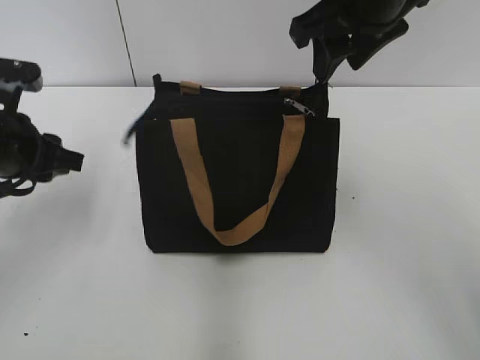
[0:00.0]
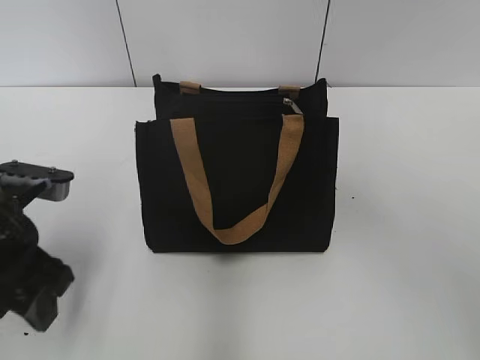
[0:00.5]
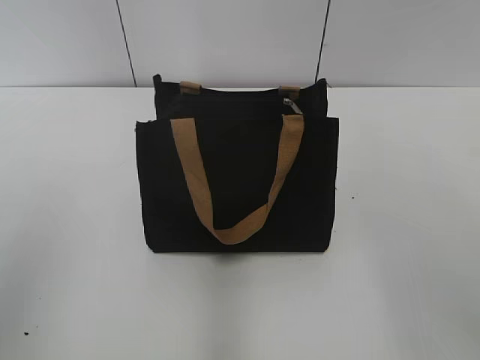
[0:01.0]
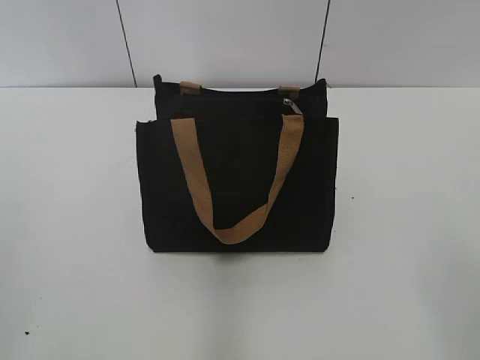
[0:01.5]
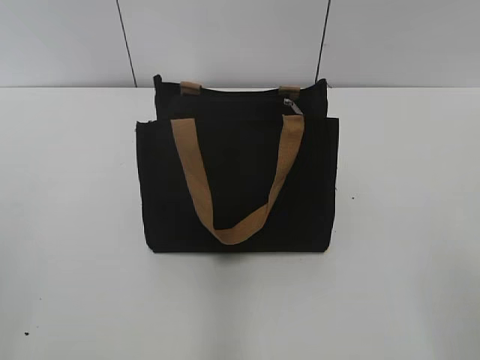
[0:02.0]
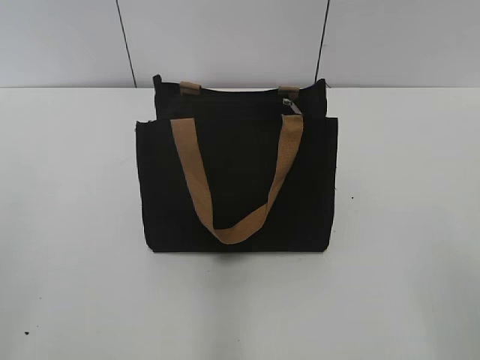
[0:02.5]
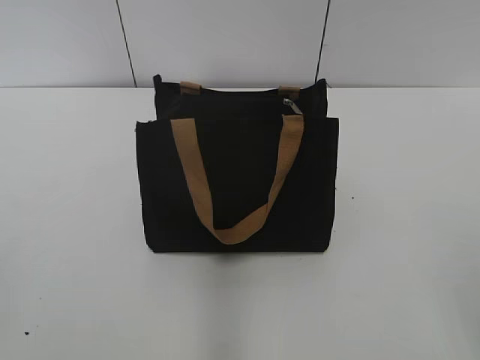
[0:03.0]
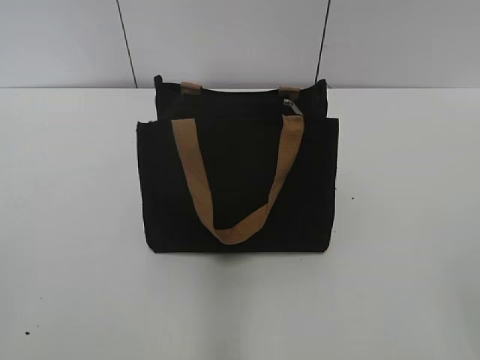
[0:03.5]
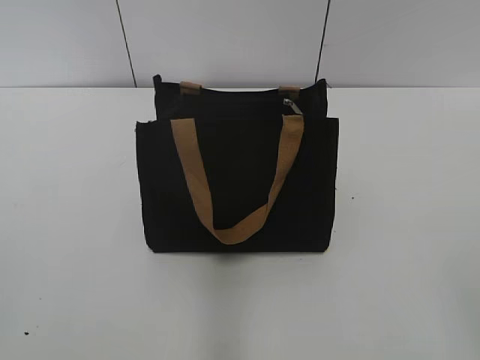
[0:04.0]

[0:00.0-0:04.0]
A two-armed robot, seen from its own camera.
0:00.0 to 0:02.0: The right gripper goes about 35 cm backward and to the right, and opens up; the left gripper travels backward by some 25 cm, and opens.

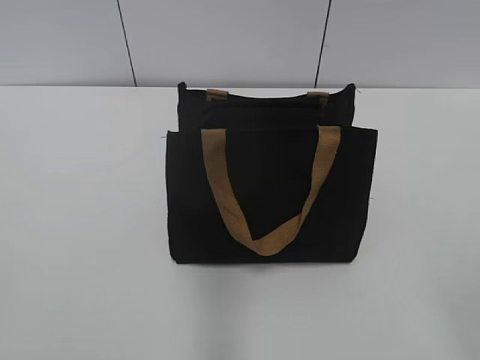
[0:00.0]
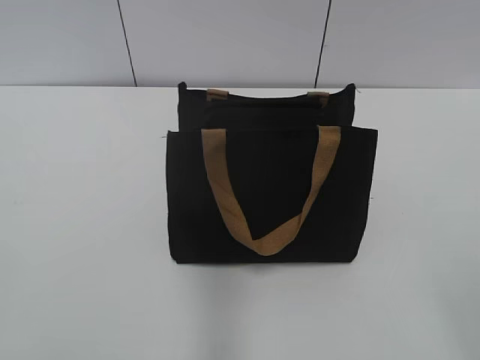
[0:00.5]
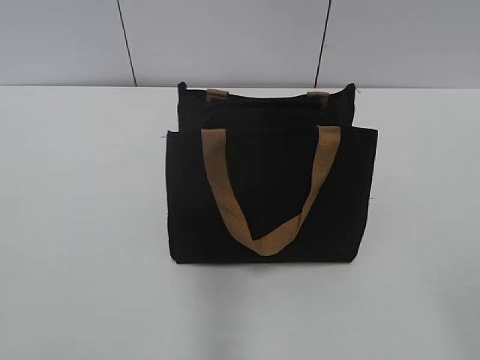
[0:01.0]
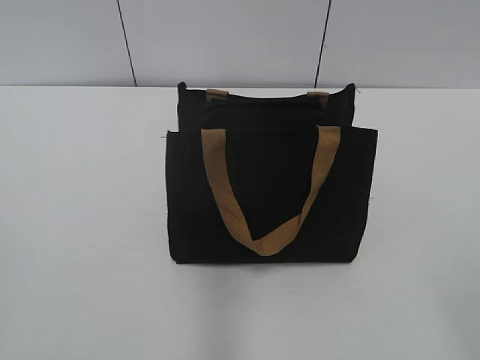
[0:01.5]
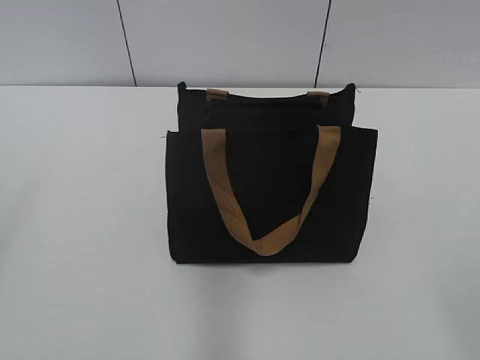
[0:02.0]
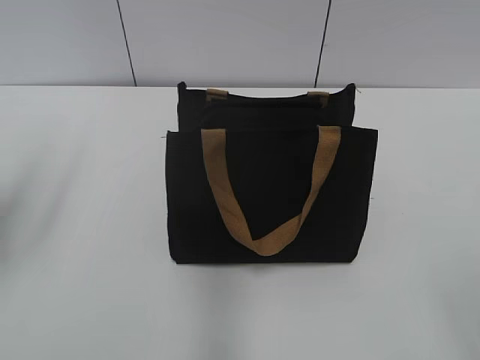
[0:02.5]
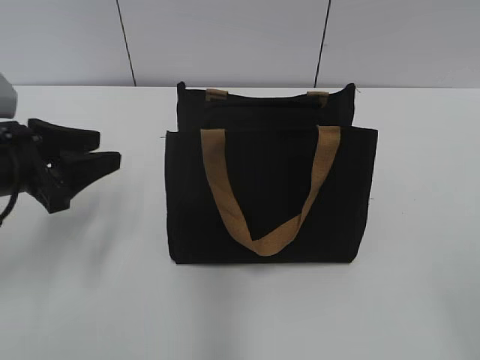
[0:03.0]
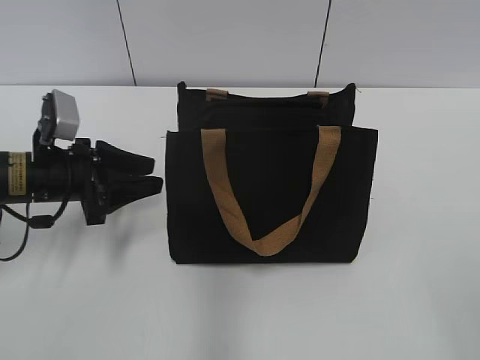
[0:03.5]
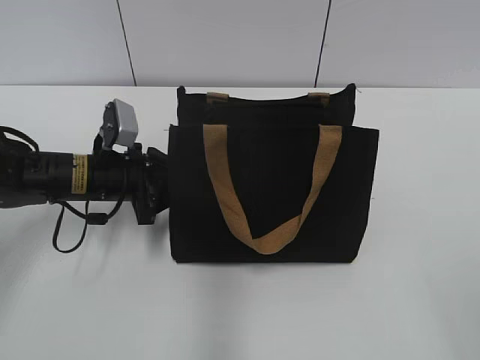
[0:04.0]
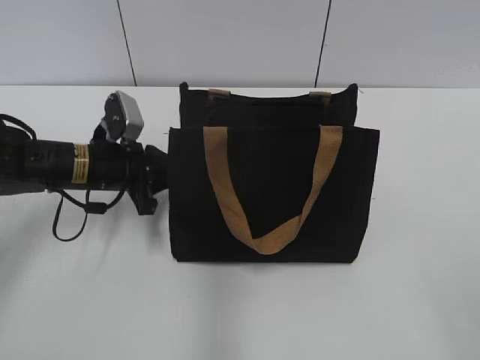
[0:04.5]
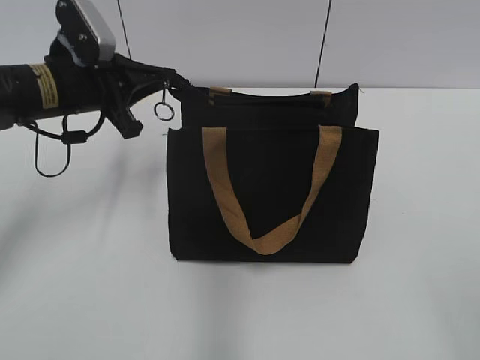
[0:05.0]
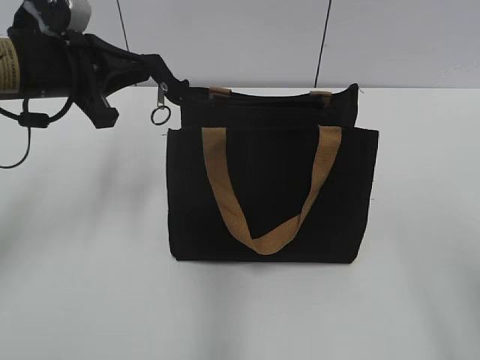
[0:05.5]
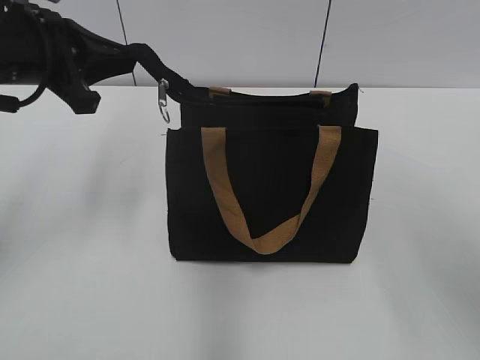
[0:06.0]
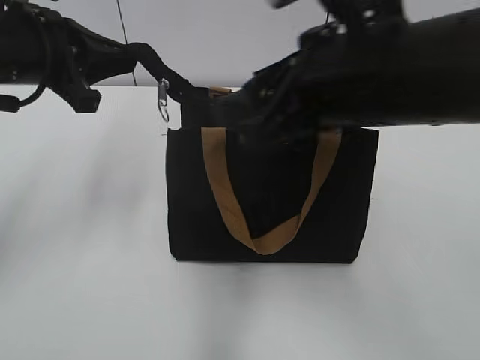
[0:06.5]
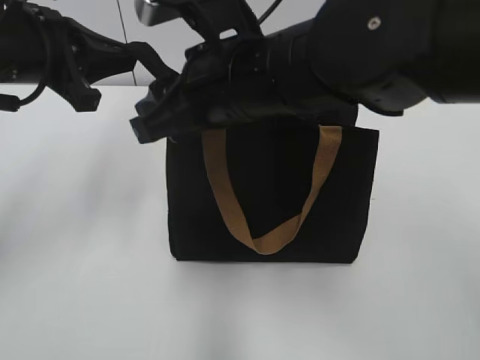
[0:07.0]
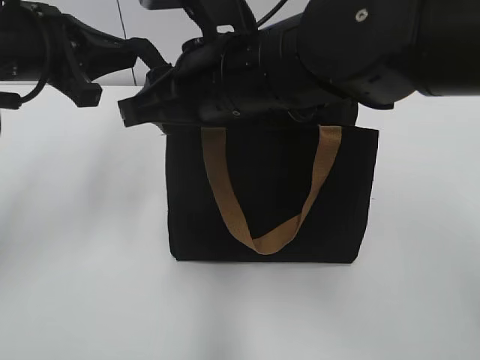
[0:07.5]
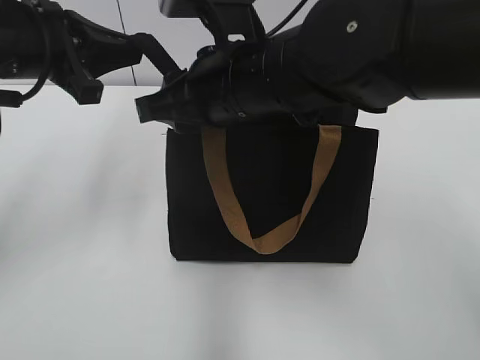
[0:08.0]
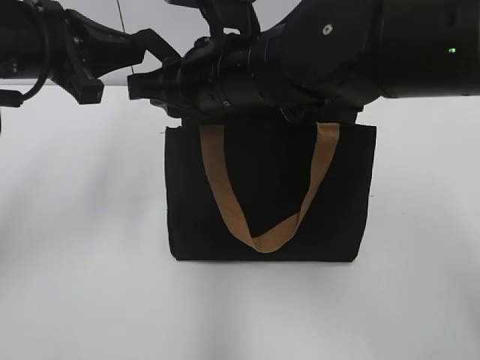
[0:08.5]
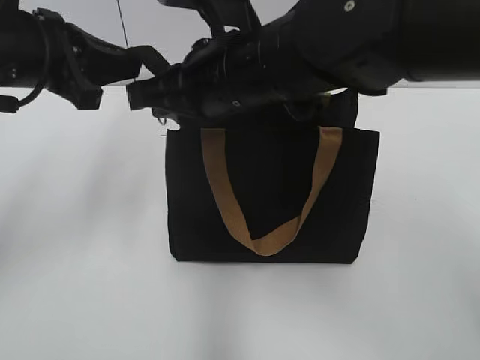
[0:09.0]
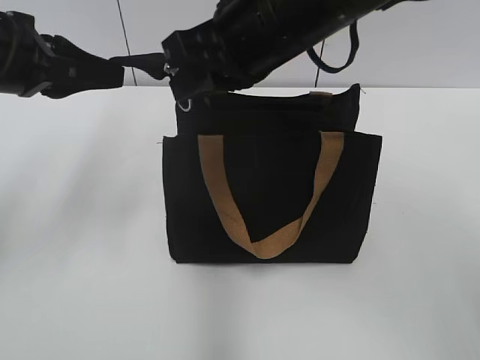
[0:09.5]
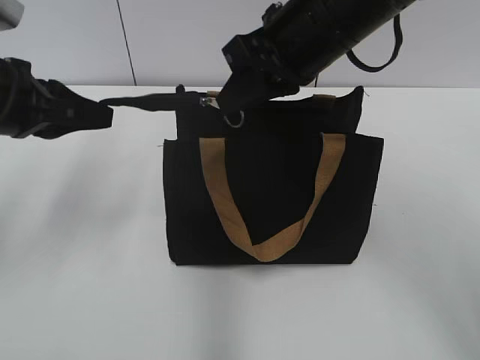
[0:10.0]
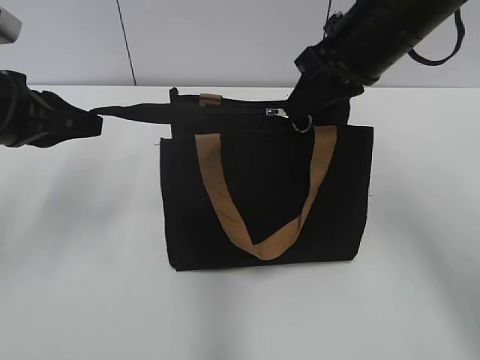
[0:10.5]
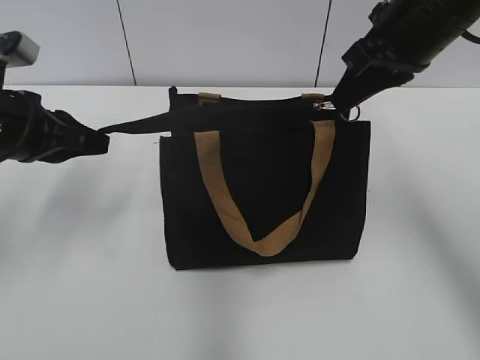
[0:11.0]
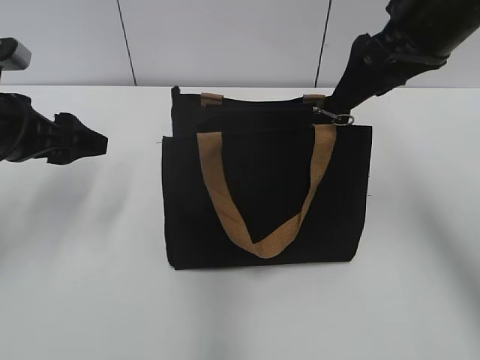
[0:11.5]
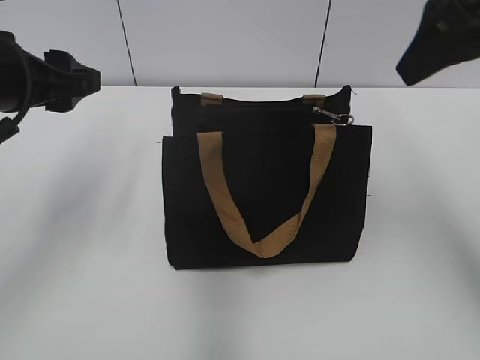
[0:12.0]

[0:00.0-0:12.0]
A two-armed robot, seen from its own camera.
Step, 0:00.0 to 0:11.0: Zip up the bag with your right hand.
0:02.0 to 0:04.0: The left gripper shifts some 40 cm forward, downward and to the right, and closes its fingers.
0:04.0 to 0:06.0: The right gripper shifts some 15 cm forward and upward. Meanwhile the left gripper moves upward, roughly 20 cm, and closes.
0:06.0 to 0:08.0: The right gripper shifts roughly 30 cm to the left and forward, and closes its fingers.
0:08.0 to 0:10.0: The right gripper moves to the right, approximately 5 cm, and closes up.
0:10.0 to 0:12.0: The left gripper opens up, while the right gripper is displaced to the right and upward by approximately 15 cm, and opens.

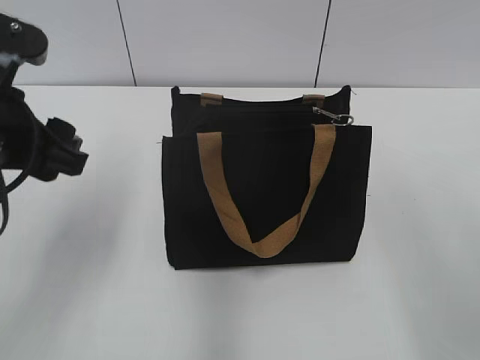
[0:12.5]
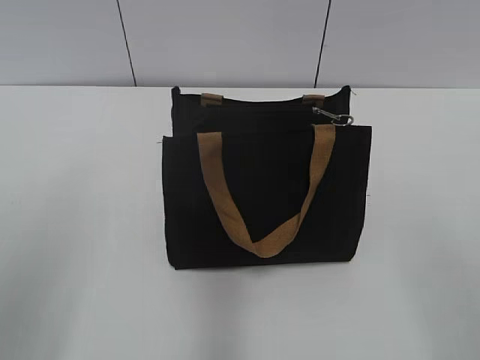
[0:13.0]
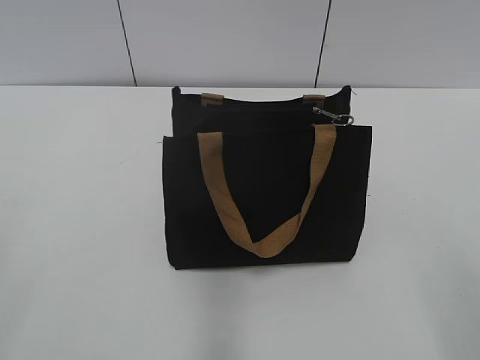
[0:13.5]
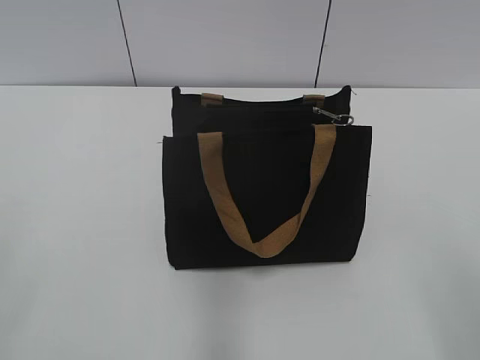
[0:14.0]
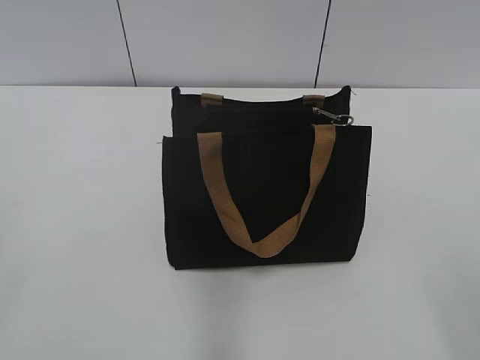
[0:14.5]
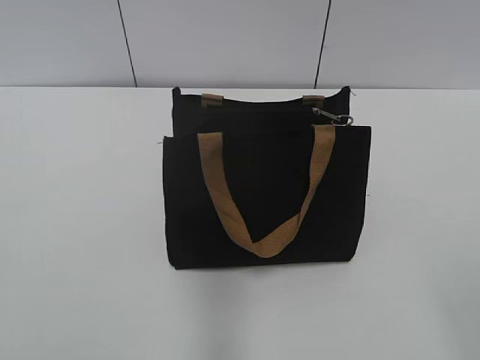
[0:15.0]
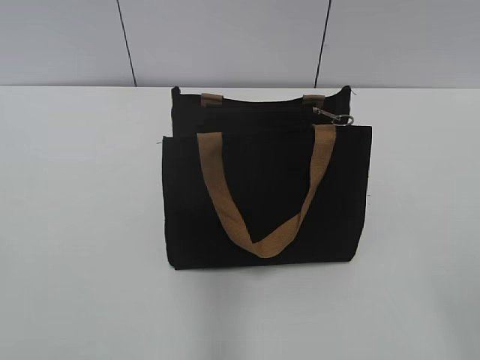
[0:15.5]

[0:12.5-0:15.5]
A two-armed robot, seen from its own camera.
0:12.5 to 0:14.0: The left gripper shifts approximately 25 cm backward and to the left.

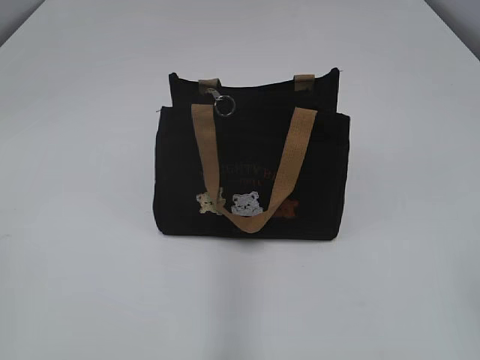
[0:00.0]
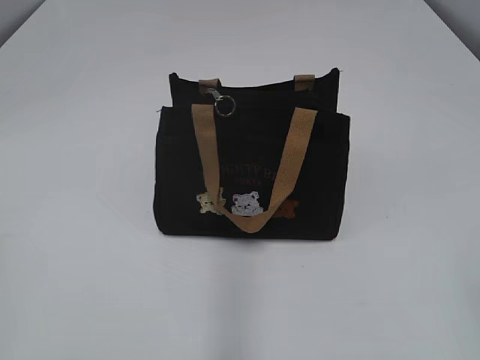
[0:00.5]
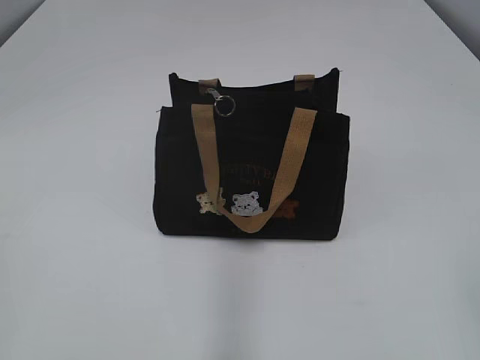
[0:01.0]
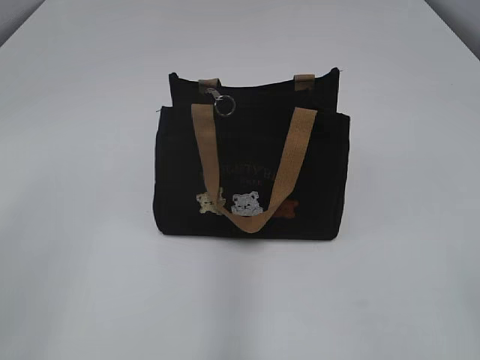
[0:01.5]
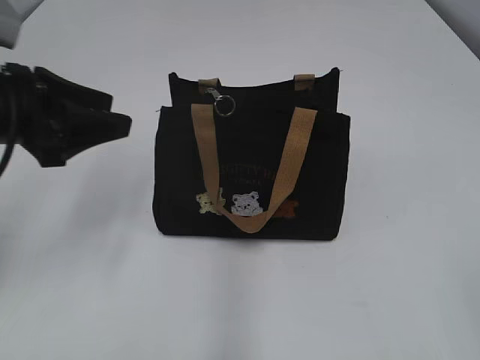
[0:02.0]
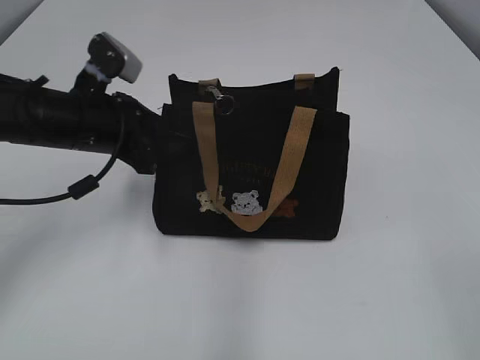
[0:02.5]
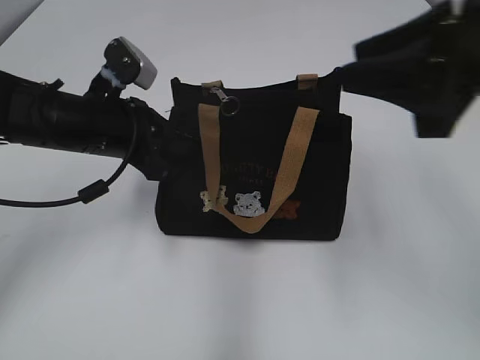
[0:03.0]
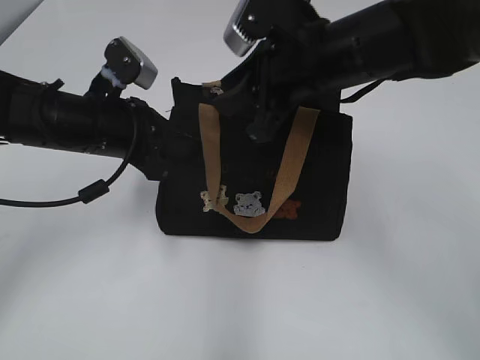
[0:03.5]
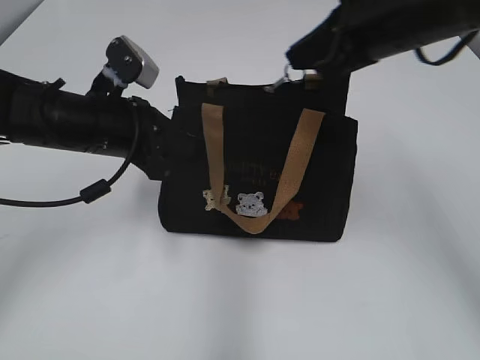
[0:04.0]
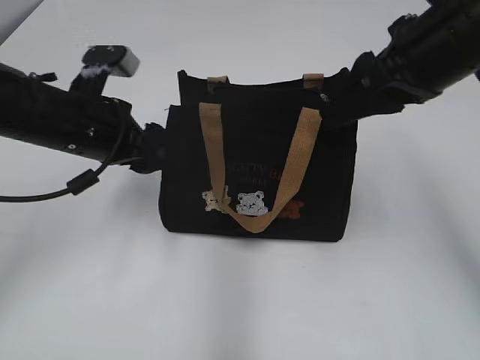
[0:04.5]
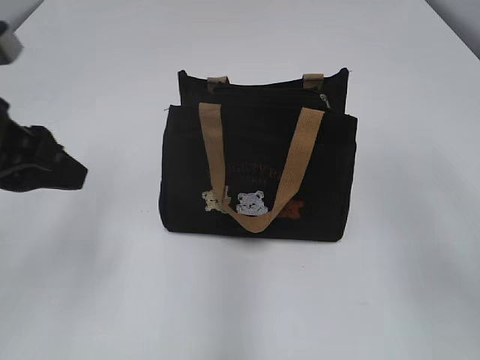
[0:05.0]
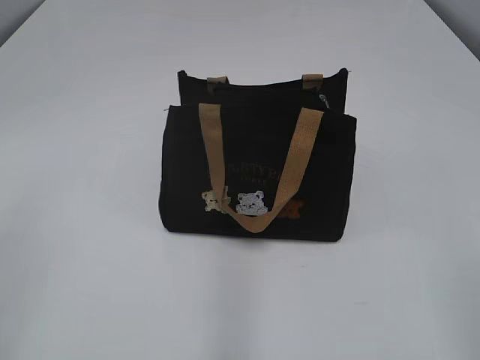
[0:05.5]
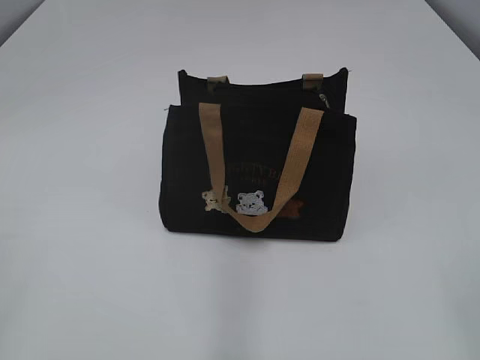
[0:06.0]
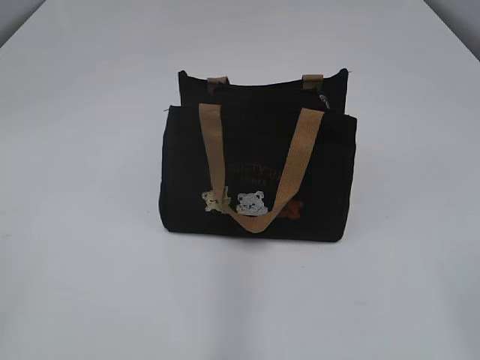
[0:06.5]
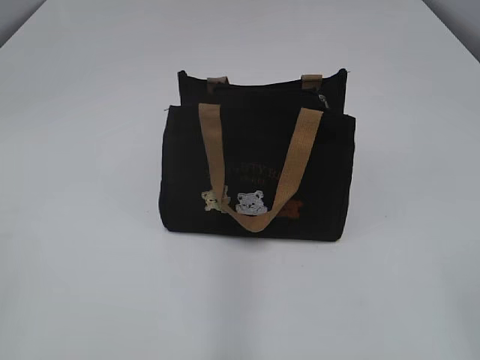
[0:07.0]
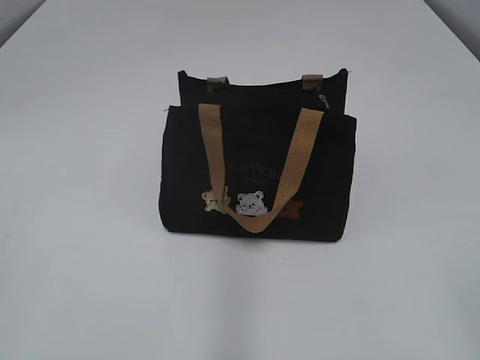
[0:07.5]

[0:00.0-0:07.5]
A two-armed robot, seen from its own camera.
Step, 0:00.0 to 0:04.0: Pull open the zipper with your right hand.
0:02.0 to 0:04.0: The right gripper moves forward, about 35 cm, and closes up. Meanwhile the left gripper moves to the right, downward and forward, some 10 cm, and closes its fingers.
0:04.0 to 0:05.5: The right gripper shifts some 30 cm backward, and opens its fingers, while the left gripper moves backward, upward and to the left, roughly 30 cm, and opens its fingers.
